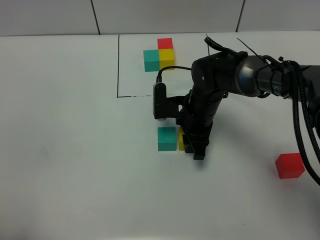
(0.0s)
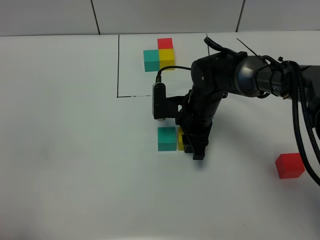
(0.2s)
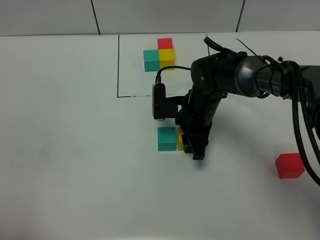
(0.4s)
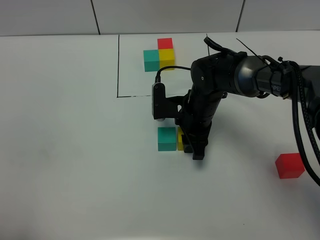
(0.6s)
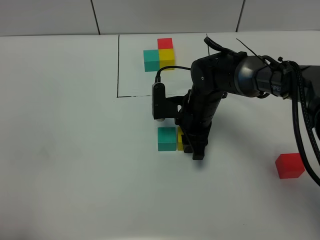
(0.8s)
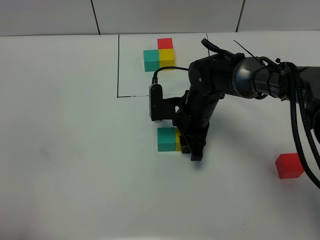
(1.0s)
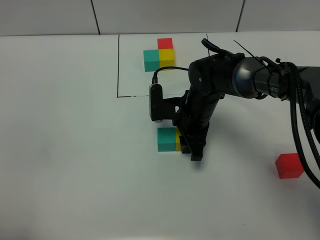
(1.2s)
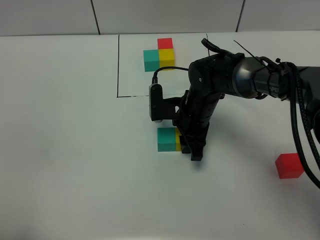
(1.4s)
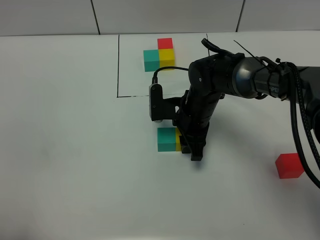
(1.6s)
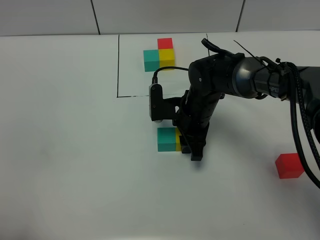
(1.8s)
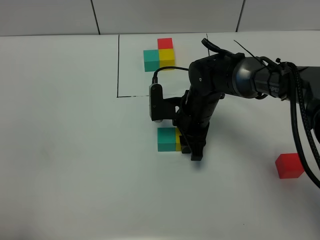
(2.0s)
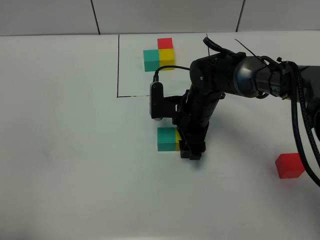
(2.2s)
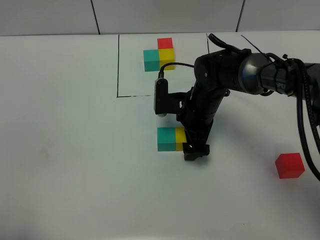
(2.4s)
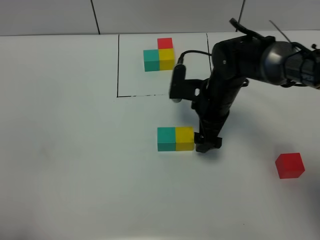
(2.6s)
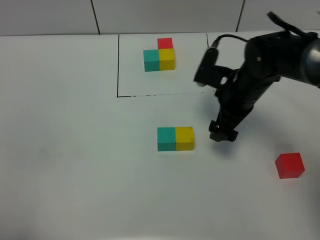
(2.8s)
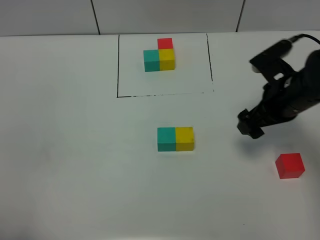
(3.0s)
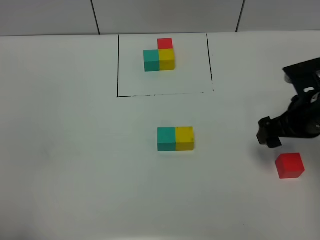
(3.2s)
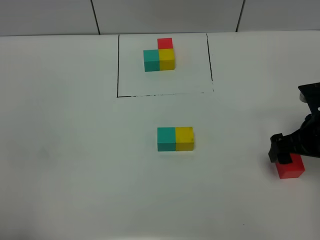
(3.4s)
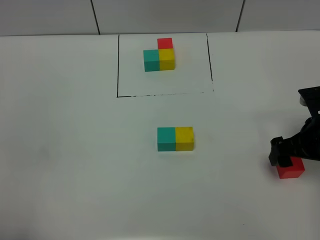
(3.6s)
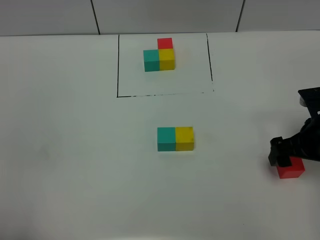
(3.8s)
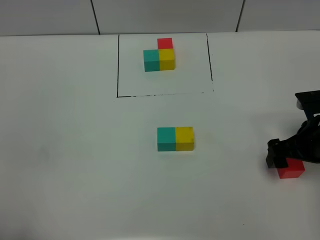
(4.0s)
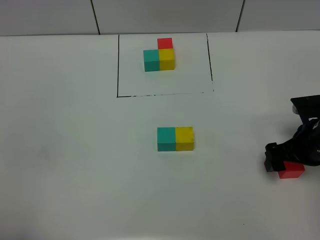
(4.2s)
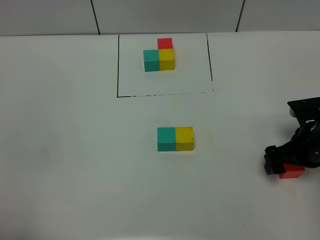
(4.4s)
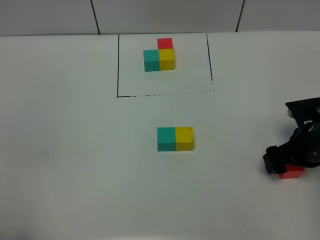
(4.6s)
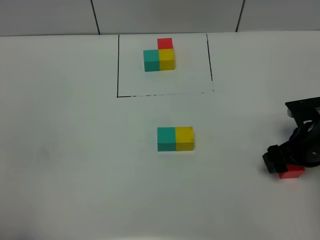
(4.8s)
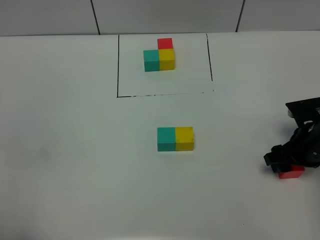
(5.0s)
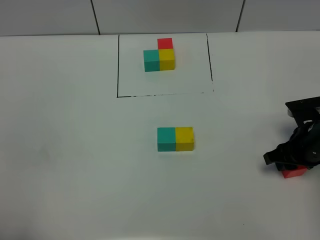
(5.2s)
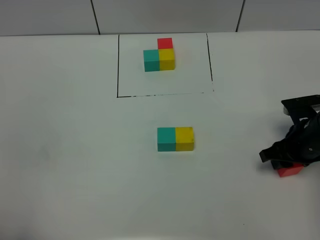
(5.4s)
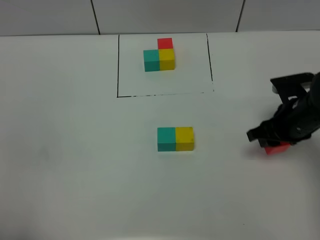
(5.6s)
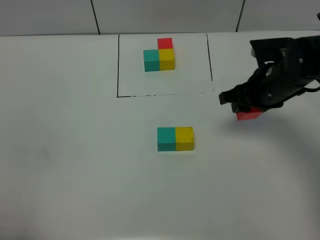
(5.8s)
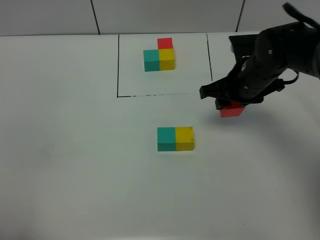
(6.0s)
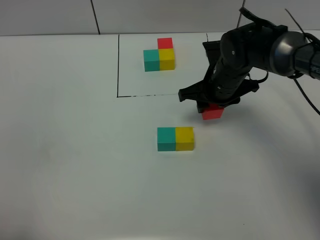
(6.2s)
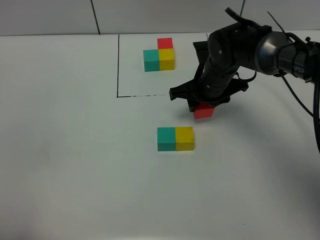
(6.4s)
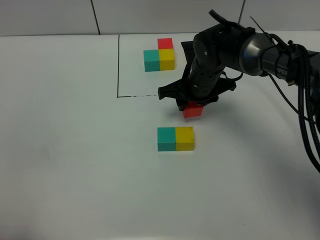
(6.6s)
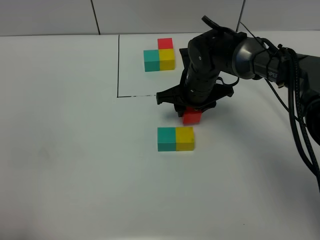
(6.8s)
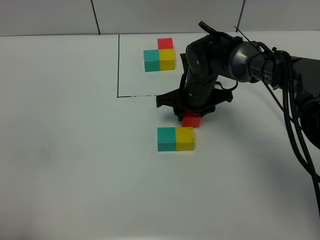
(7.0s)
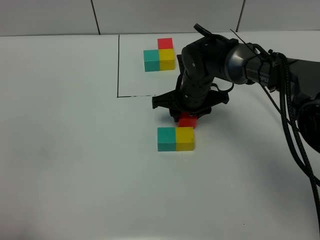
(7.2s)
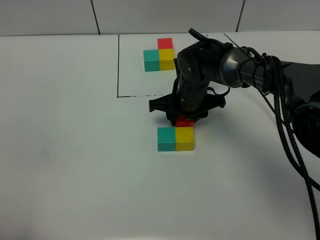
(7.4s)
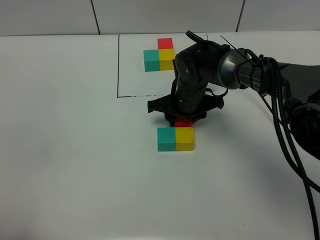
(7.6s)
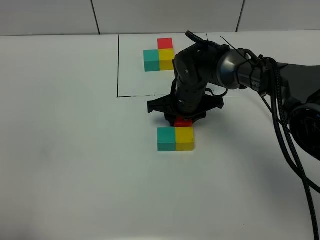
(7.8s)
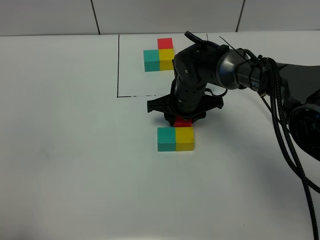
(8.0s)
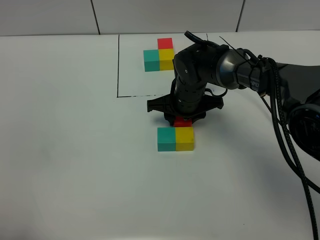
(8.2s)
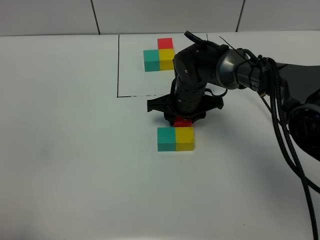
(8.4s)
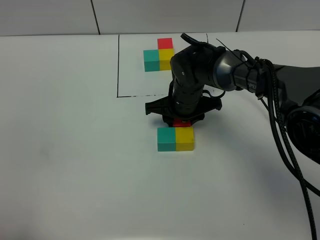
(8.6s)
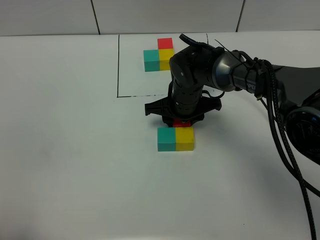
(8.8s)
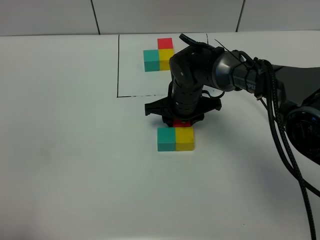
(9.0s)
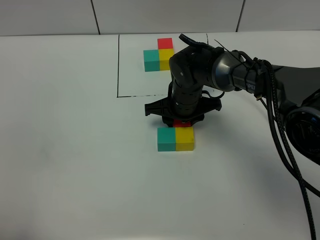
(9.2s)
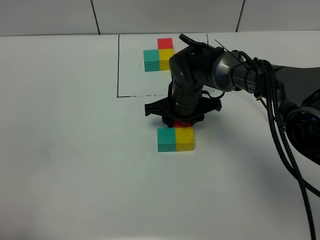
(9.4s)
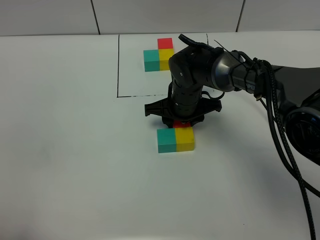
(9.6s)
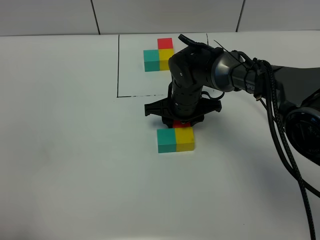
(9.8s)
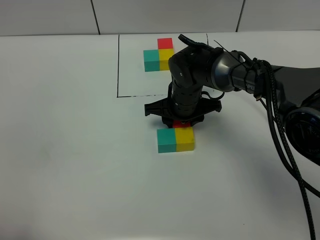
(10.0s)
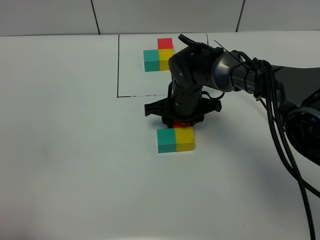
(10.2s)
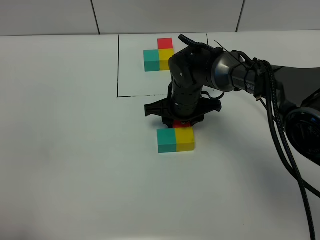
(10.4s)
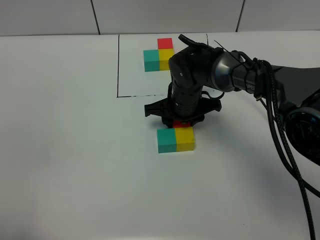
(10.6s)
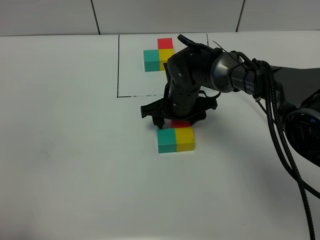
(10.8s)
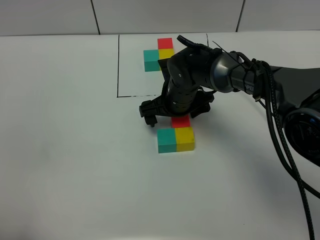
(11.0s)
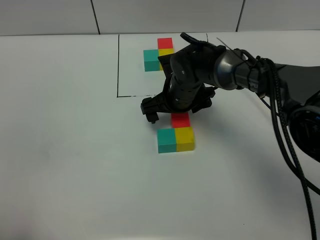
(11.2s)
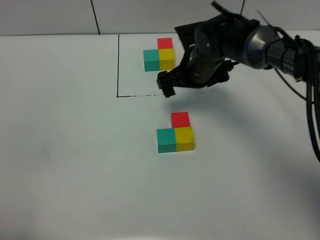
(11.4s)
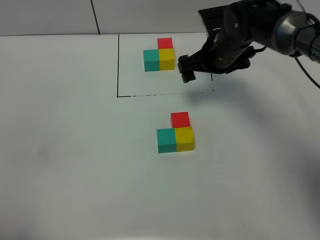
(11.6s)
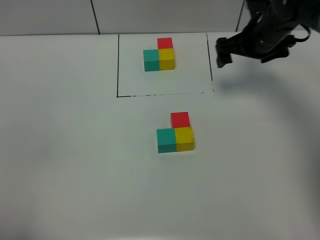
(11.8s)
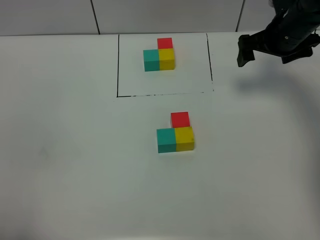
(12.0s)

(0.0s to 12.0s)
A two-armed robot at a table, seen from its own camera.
Task of the whole recording: According to the building block template in front, assemble the scattered blocks together.
Step, 0.0s - 2.4s: Put the yellow build block on the right of the green build block.
Step, 2.6s - 10.8s: Put the red build block on the front of the green build block.
0.0s - 1.6s: Both grippers stay about where they are.
1.6s - 3.0s: The right gripper shifts roughly 20 cm to the right and upward, and opens up.
3.0s - 4.4s: The right gripper is displaced downward by approximately 5 cm.
4.4s - 6.0s: The right gripper moves to the left, forward and upward, approximately 15 cm, and closes.
6.0s - 7.6s: The right gripper is displaced to the left and downward by some 10 cm.
7.6s - 10.4s: Neither gripper changes place.
10.4s - 12.0s: The right gripper shifts roughly 25 cm to the right and upward, and opens.

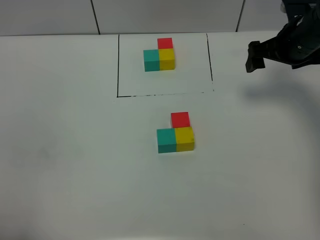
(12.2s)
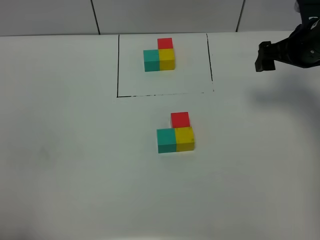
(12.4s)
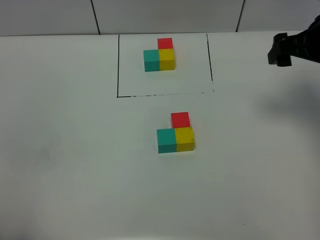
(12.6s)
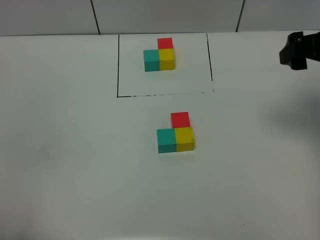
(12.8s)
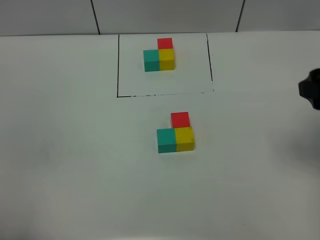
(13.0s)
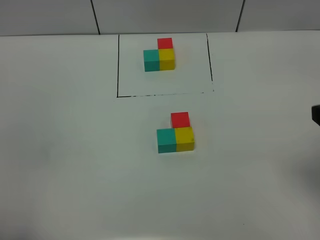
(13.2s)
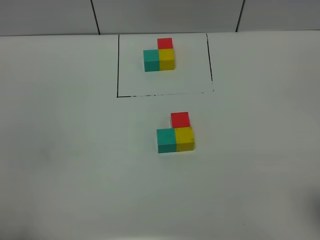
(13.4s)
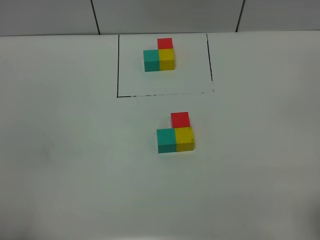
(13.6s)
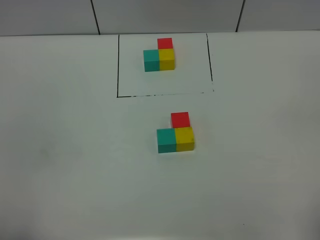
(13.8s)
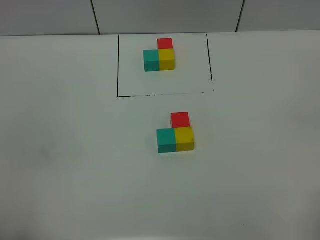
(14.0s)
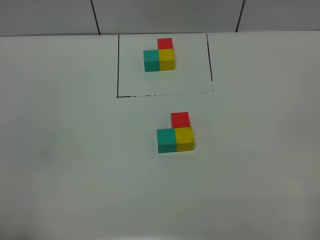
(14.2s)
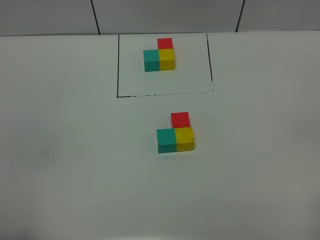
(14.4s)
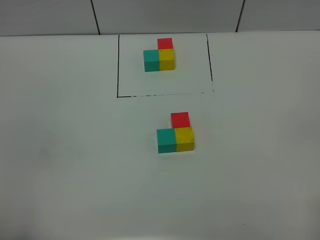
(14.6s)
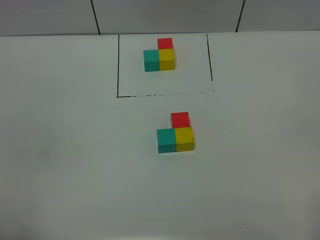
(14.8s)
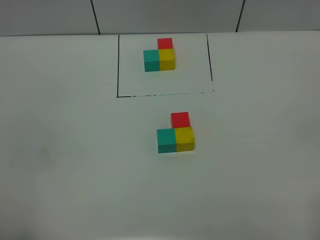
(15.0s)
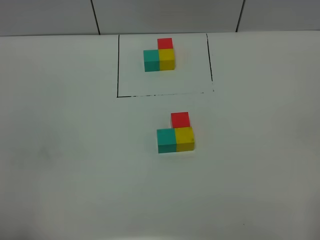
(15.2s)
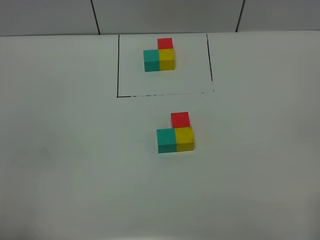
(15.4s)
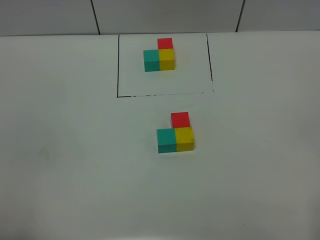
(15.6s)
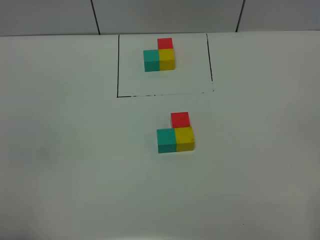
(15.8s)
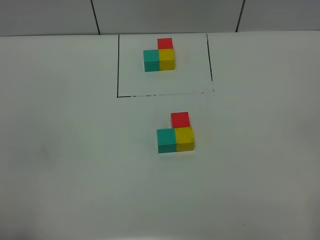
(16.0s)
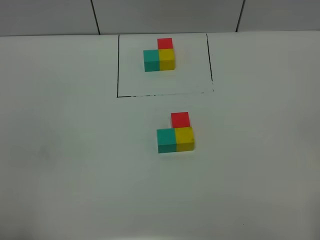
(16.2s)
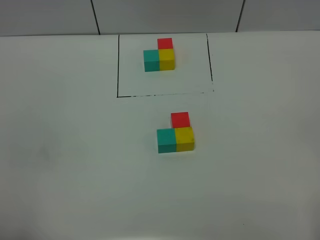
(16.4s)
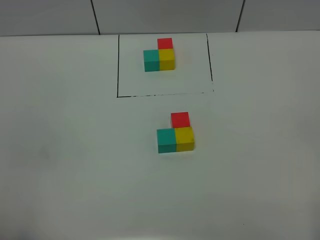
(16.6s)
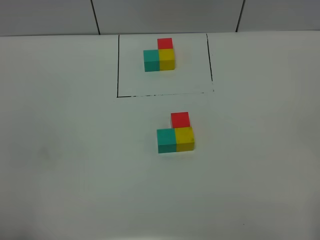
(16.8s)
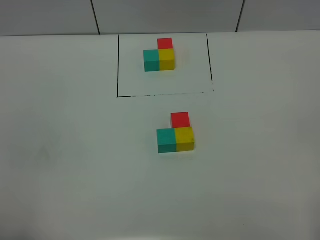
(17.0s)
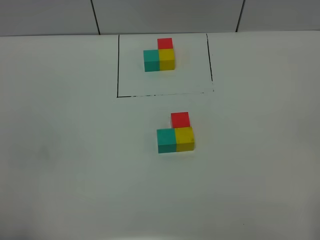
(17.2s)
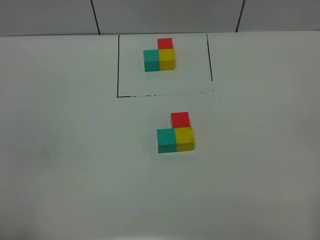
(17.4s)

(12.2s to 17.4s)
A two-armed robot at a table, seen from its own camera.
Task of the whole recording: According to the building block template in front, assemble the scattered blocks together.
12.2s - 14.0s: The right gripper is displaced backward by roughly 40 cm.
15.6s - 17.4s: The two grippers keep their place.

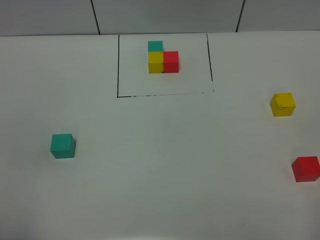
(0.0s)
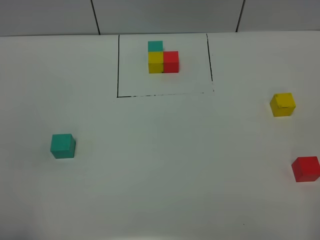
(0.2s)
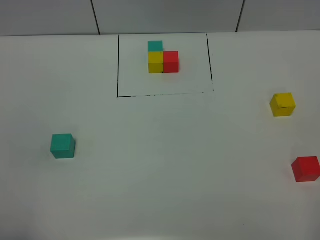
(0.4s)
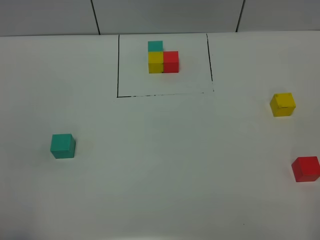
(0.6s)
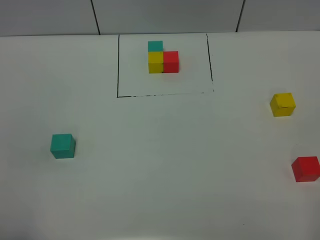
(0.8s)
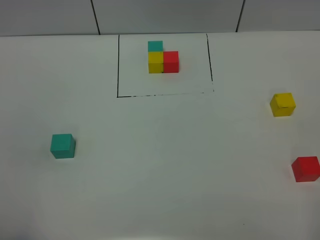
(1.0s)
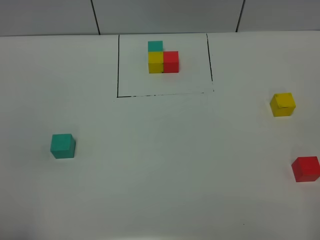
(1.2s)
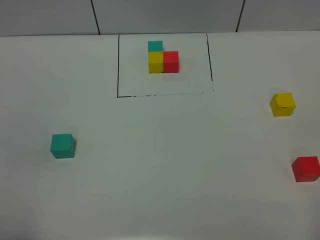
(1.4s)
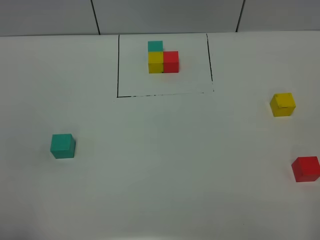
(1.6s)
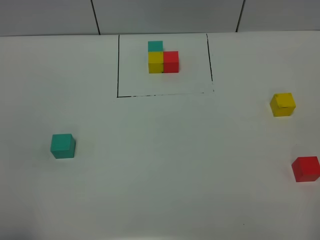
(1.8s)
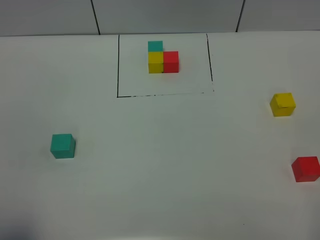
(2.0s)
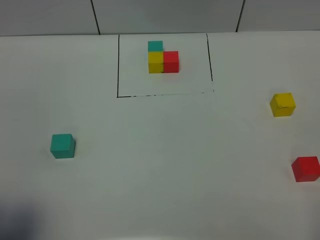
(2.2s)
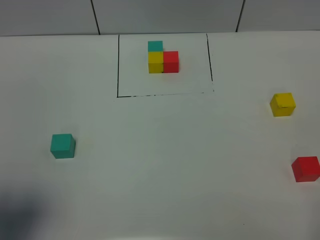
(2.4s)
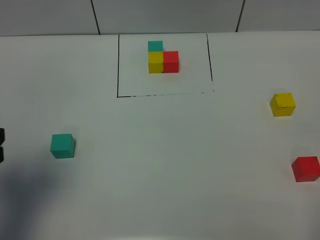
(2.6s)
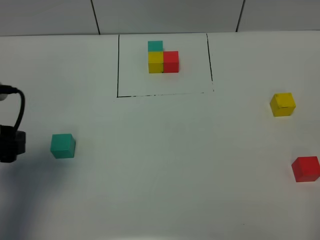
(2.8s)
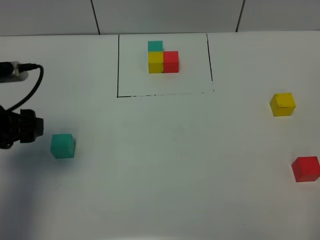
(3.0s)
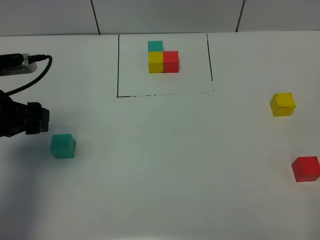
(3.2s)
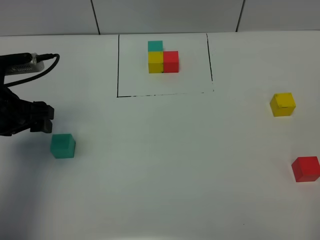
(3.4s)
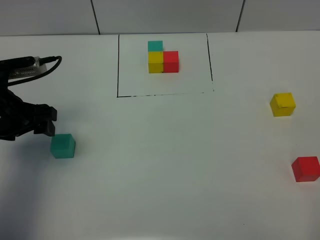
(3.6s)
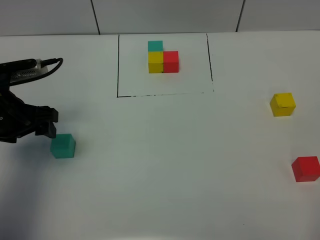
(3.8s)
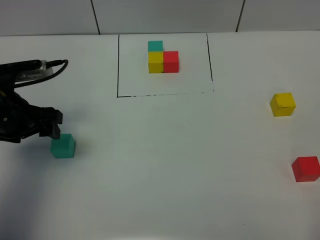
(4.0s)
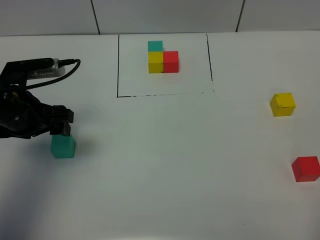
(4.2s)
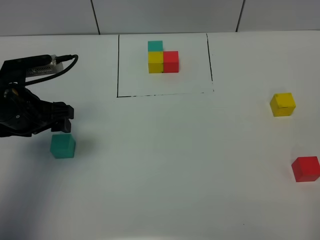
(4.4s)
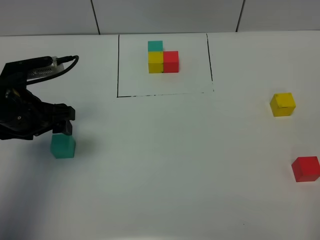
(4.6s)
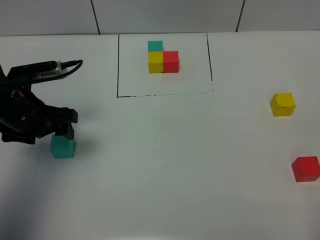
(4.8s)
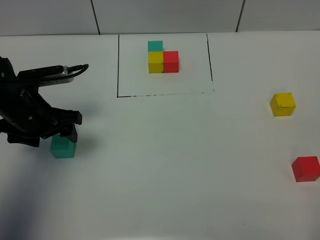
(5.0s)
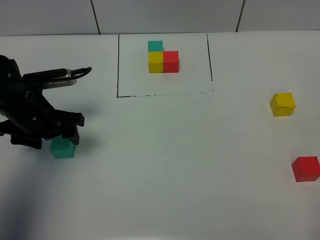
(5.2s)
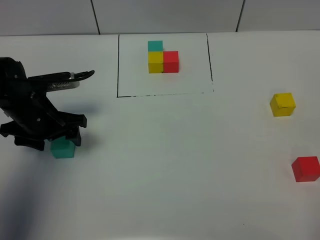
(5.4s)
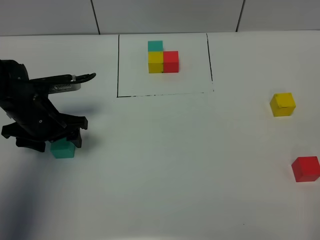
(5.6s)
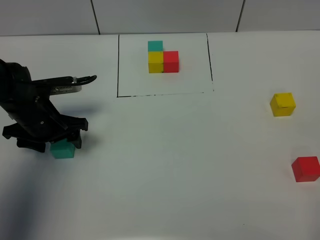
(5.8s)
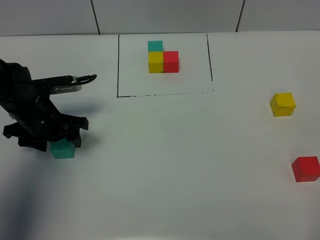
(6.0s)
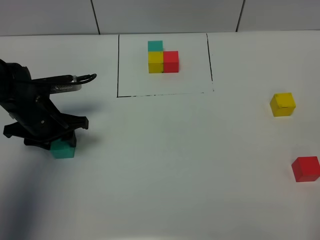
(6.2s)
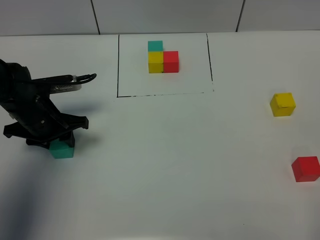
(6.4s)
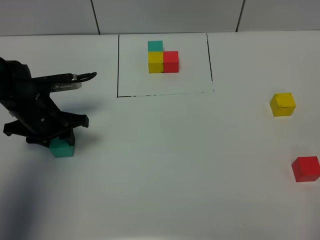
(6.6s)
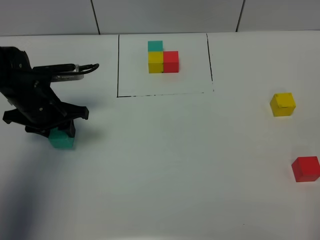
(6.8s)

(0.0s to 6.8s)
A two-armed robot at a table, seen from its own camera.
Task of the whole recording: According to the building block template in front, assemble the scattered blocks together.
0.0s - 1.4s: Both grippers stay put.
1.4s - 2.8s: The left gripper goes roughly 20 cm forward.
2.8s - 4.0s: The left gripper moves forward, roughly 10 cm.
4.0s - 5.4s: The left gripper shifts roughly 5 cm downward.
5.4s - 6.8s: The left gripper closes up.
